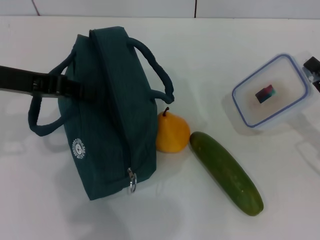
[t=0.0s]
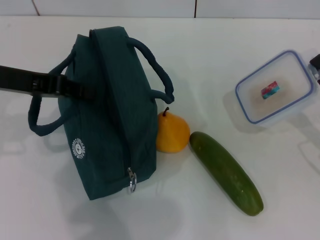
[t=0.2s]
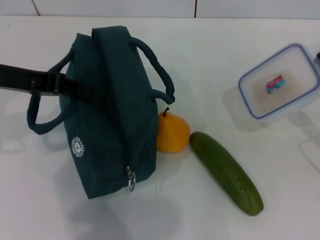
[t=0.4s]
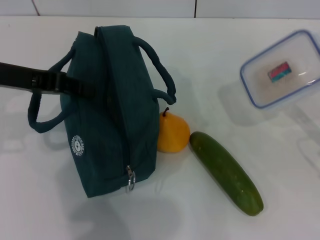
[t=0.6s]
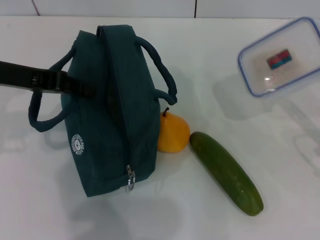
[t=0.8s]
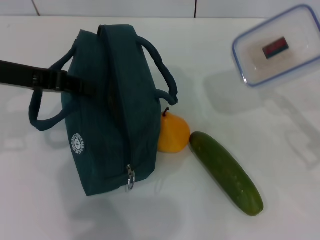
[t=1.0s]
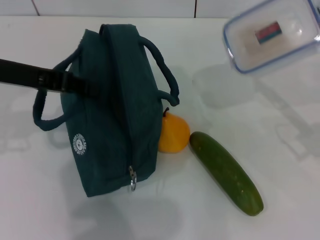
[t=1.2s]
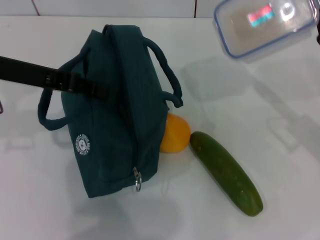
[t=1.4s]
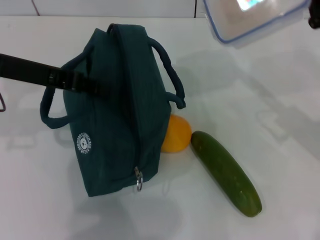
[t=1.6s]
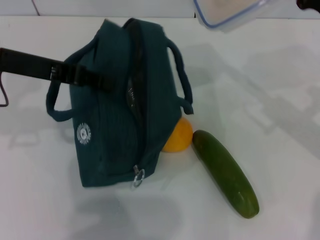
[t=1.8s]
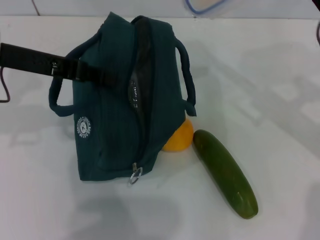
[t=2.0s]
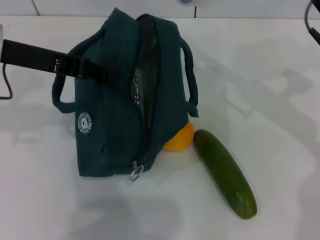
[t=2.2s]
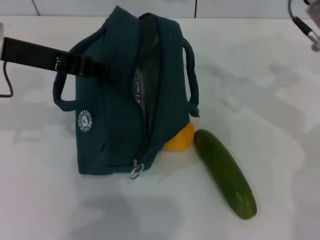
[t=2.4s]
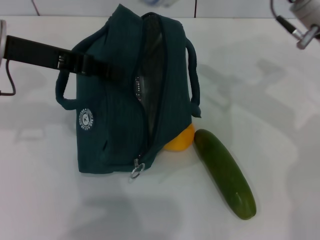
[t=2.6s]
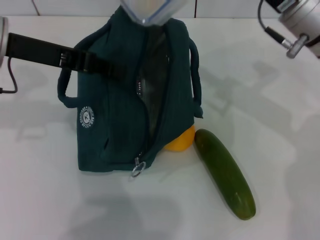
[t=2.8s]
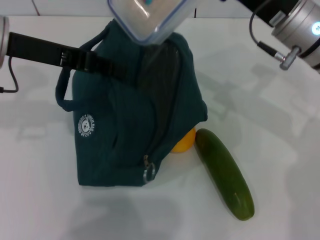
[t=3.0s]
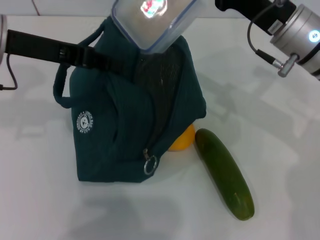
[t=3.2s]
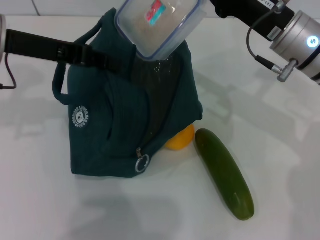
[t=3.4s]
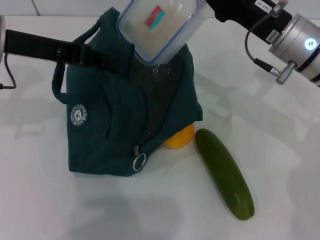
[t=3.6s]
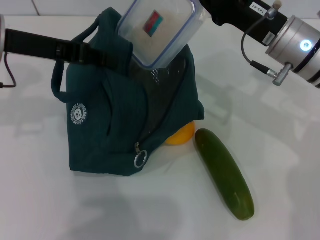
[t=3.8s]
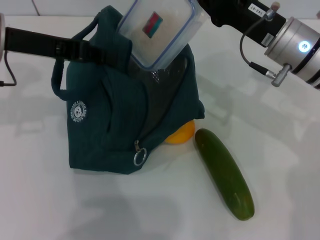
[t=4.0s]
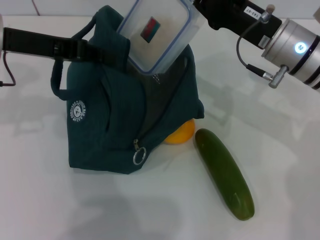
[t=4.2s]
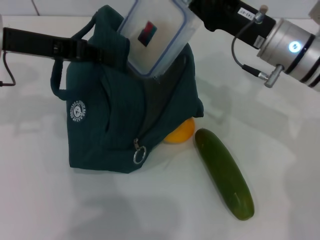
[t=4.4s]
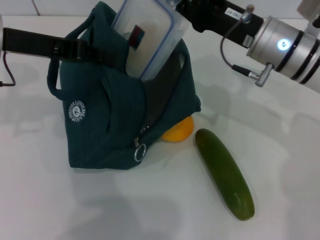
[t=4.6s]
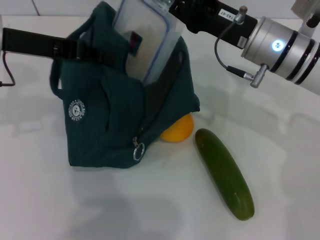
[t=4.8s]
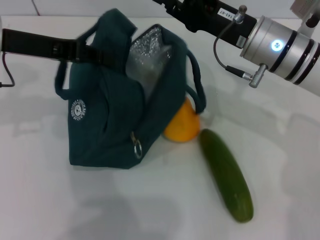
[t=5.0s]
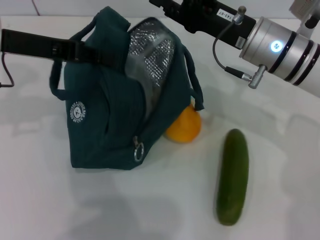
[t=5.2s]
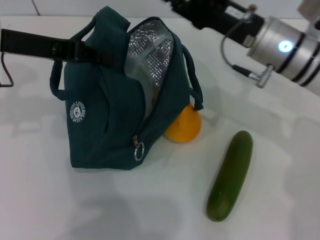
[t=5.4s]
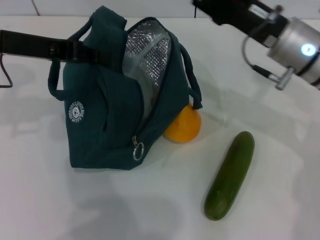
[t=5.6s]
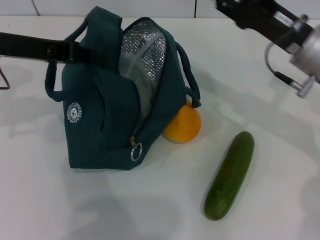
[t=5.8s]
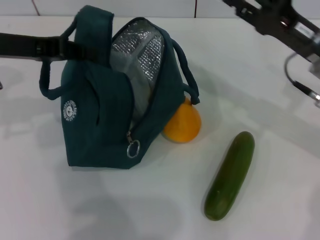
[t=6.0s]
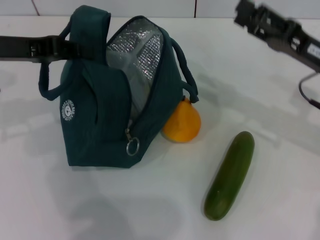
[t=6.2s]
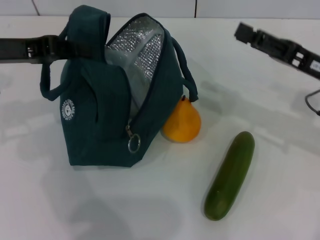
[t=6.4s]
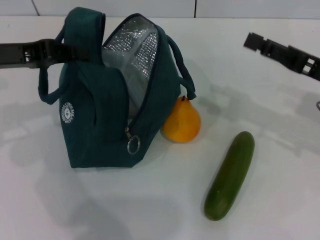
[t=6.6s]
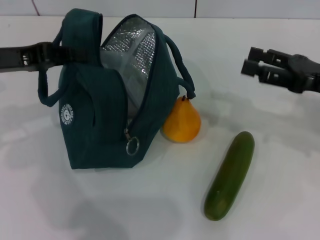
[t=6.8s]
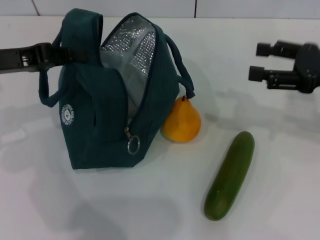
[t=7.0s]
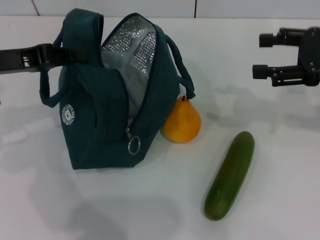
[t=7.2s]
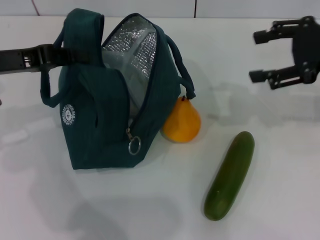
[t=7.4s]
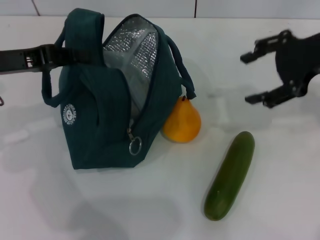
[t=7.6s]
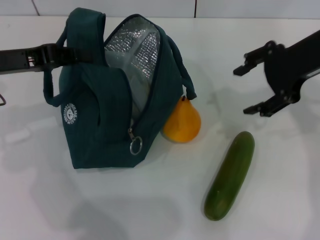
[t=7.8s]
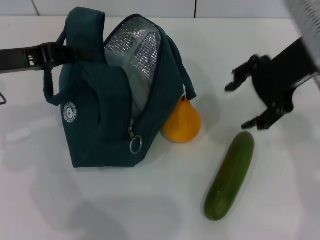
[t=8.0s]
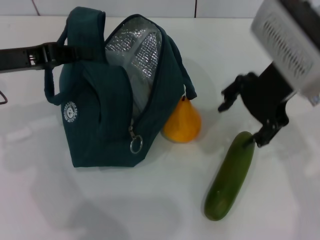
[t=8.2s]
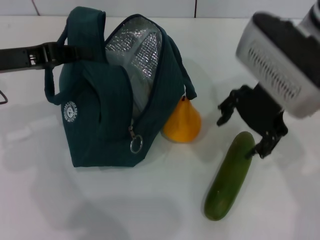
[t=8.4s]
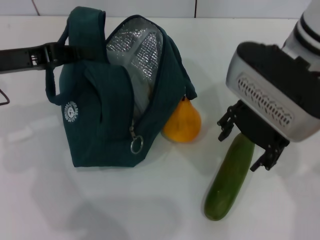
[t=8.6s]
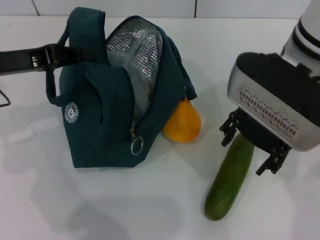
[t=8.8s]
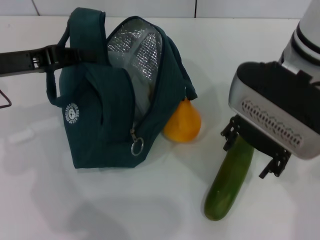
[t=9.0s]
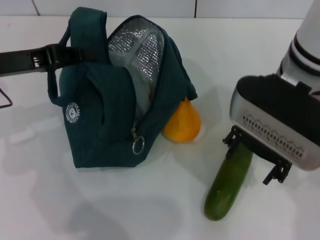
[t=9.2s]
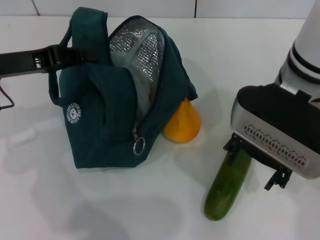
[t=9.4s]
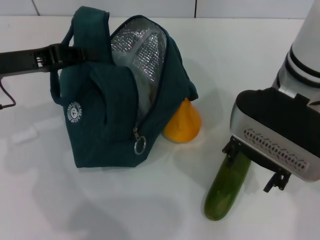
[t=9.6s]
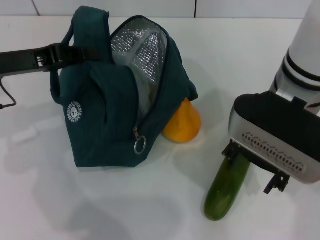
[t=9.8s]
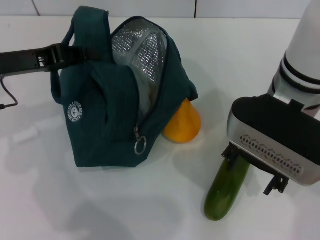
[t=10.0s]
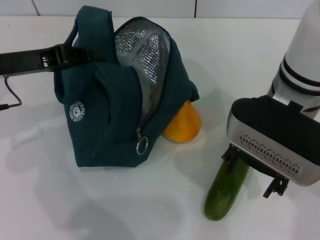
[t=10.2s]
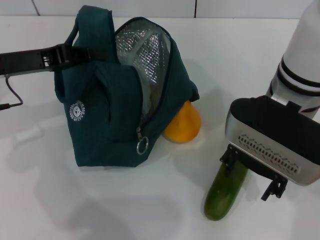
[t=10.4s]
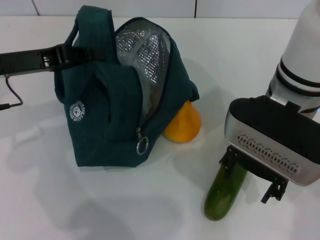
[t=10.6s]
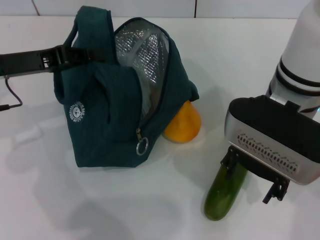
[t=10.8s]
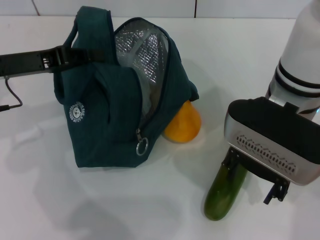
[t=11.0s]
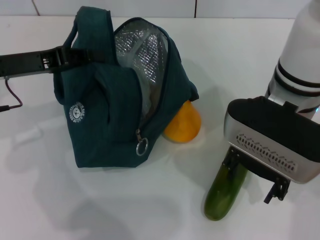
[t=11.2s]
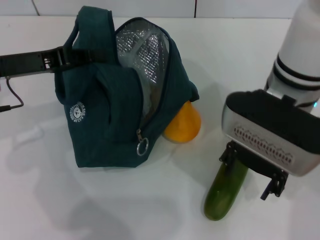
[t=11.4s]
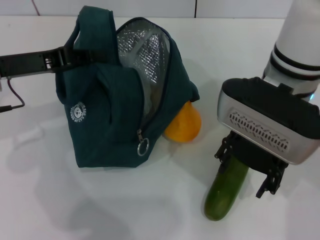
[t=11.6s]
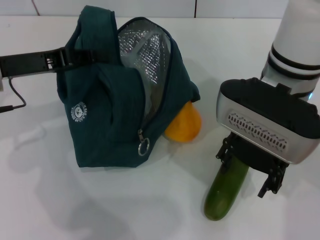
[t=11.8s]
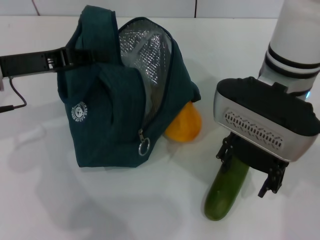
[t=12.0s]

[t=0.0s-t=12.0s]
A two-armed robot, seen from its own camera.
Step, t=0.0s to t=5.4s: Place the lunch box into the lunch bag with your right hand.
t=0.0s to t=1.6s: The right gripper shifts about 10 cm upward and to the left.
t=1.6s to t=3.0s: The right gripper goes roughly 10 cm to the left and forward.
t=4.4s to t=6.0s: The right gripper shifts roughly 5 cm to the right, and opens.
t=6.0s to t=7.6s: The right gripper is displaced upward by roughly 10 cm.
t=7.6s to t=9.0s: The right gripper moves to the left, some 15 cm.
t=10.4s to t=12.0s: The grippers move only a little.

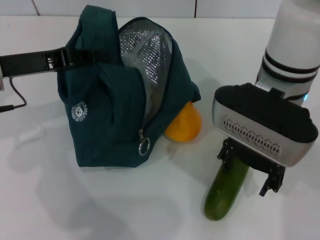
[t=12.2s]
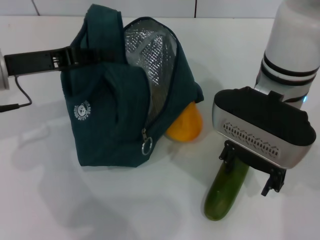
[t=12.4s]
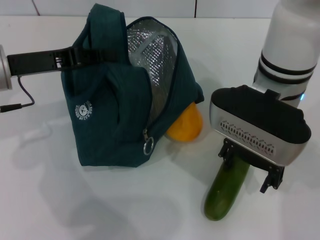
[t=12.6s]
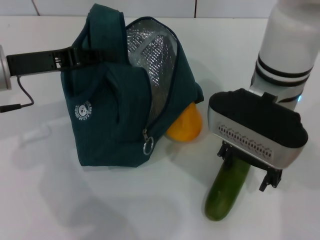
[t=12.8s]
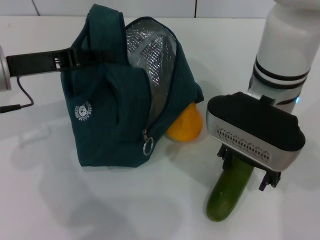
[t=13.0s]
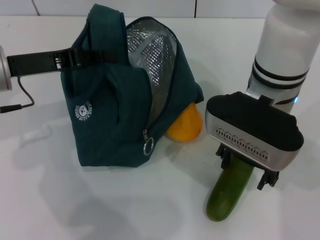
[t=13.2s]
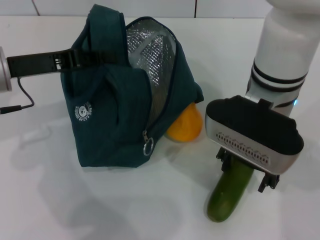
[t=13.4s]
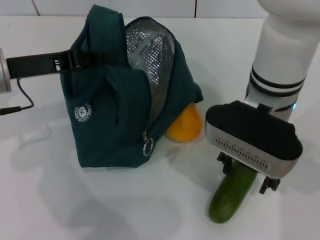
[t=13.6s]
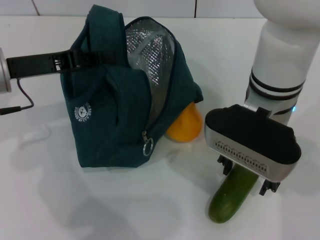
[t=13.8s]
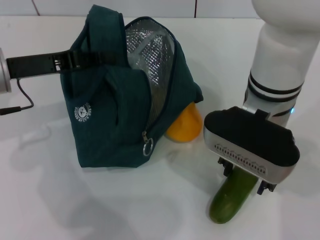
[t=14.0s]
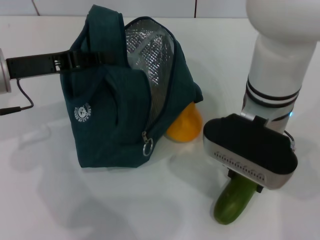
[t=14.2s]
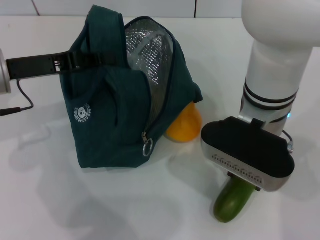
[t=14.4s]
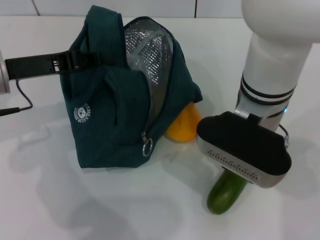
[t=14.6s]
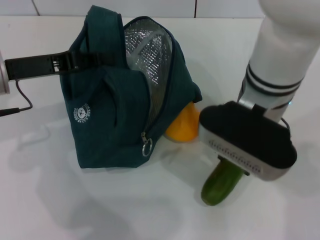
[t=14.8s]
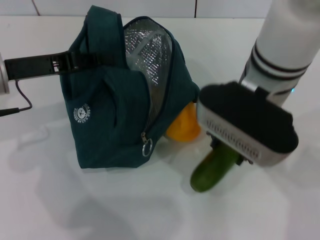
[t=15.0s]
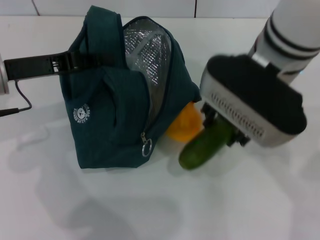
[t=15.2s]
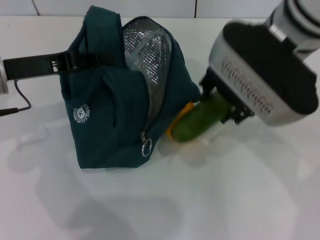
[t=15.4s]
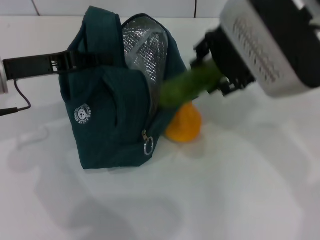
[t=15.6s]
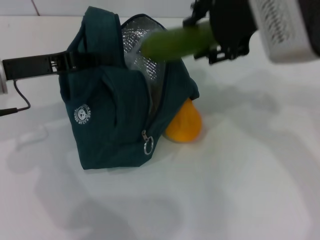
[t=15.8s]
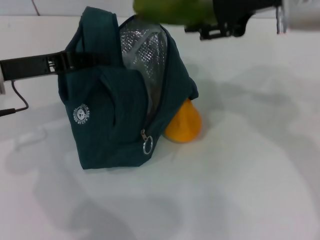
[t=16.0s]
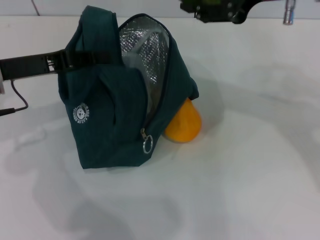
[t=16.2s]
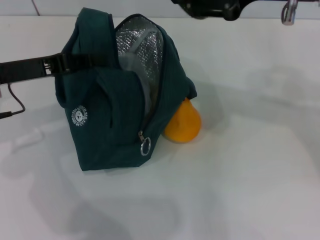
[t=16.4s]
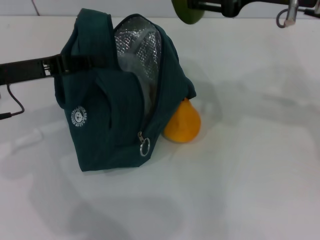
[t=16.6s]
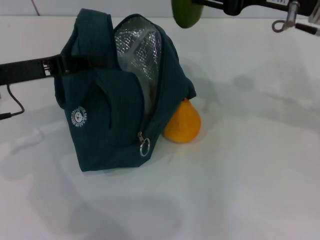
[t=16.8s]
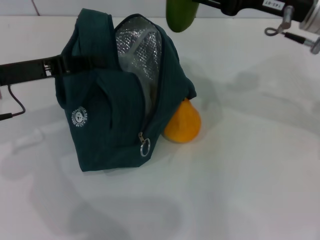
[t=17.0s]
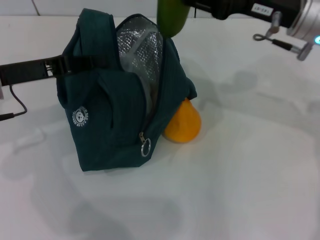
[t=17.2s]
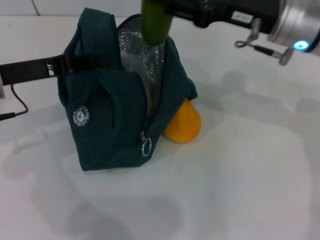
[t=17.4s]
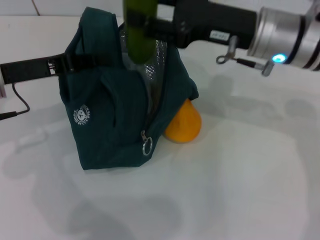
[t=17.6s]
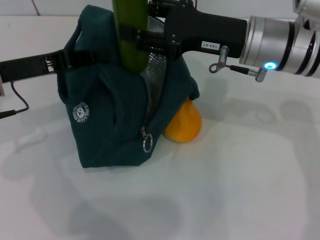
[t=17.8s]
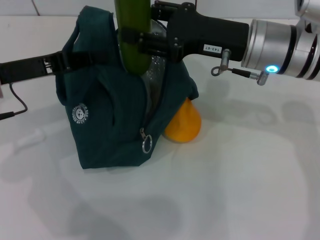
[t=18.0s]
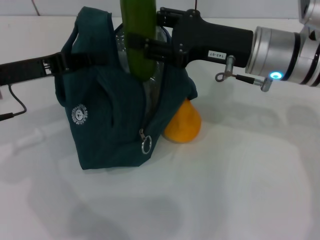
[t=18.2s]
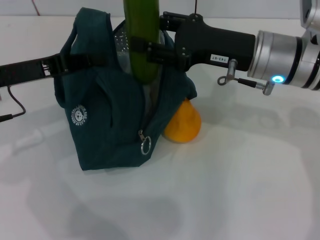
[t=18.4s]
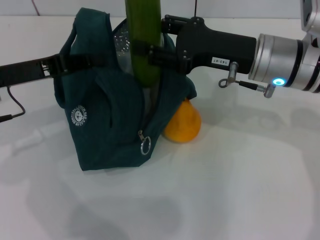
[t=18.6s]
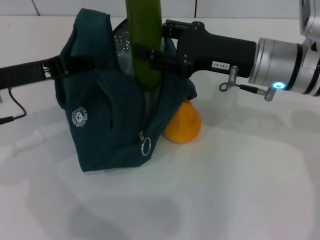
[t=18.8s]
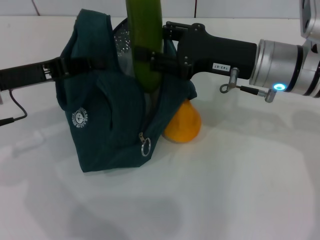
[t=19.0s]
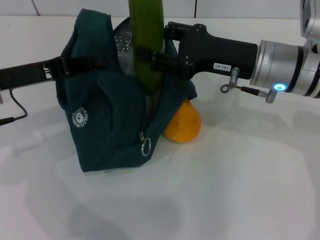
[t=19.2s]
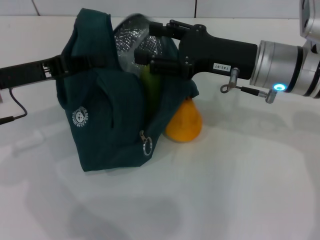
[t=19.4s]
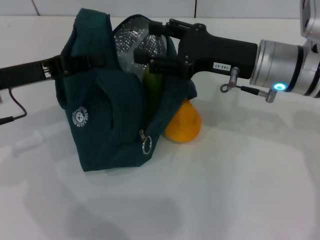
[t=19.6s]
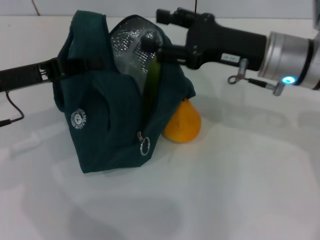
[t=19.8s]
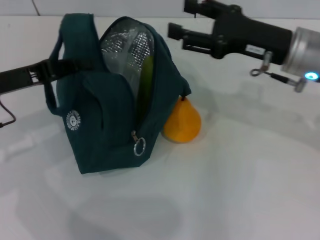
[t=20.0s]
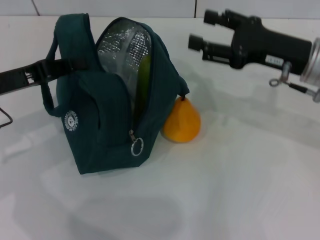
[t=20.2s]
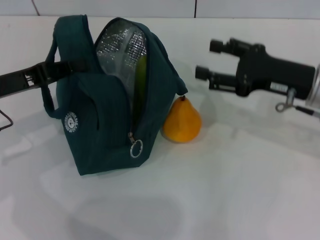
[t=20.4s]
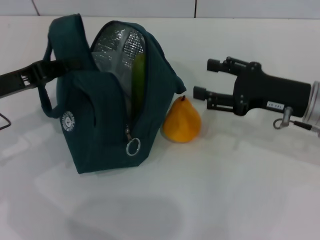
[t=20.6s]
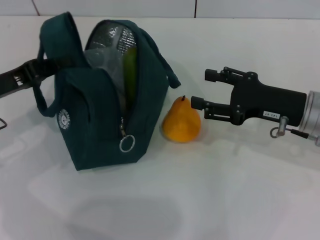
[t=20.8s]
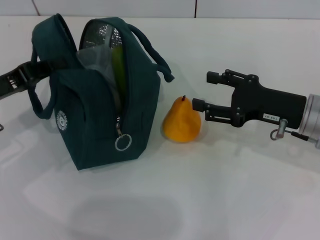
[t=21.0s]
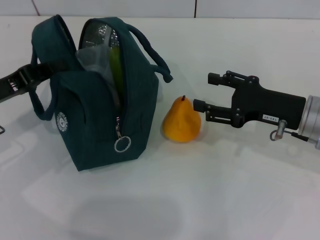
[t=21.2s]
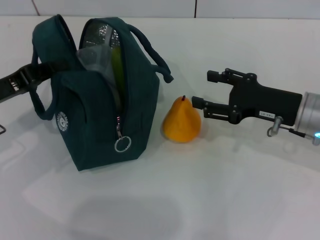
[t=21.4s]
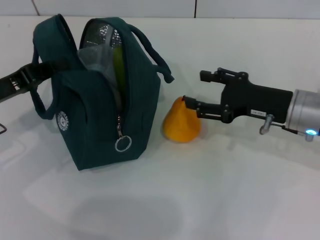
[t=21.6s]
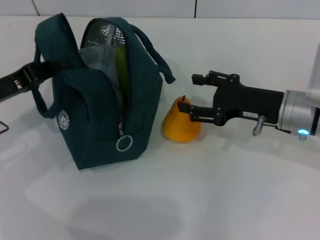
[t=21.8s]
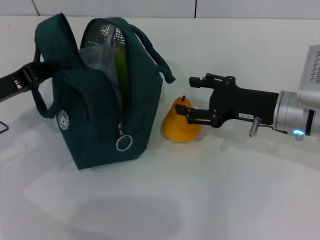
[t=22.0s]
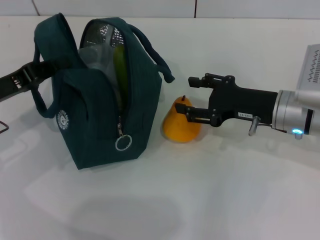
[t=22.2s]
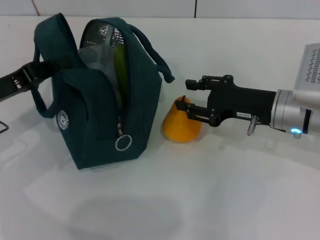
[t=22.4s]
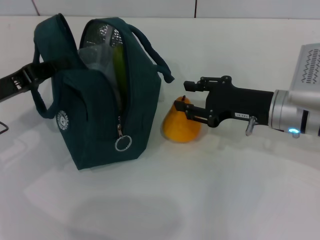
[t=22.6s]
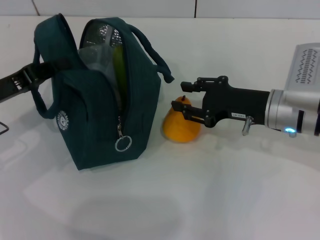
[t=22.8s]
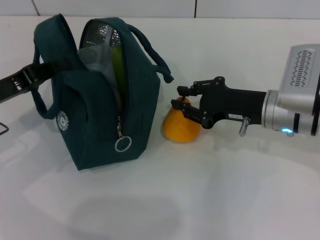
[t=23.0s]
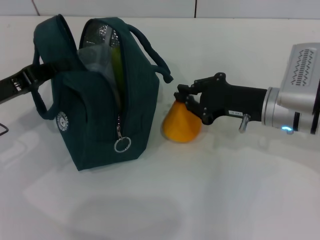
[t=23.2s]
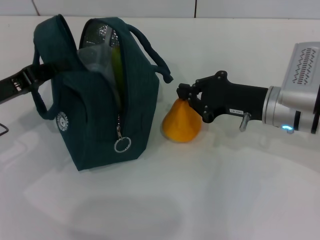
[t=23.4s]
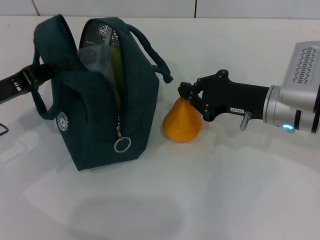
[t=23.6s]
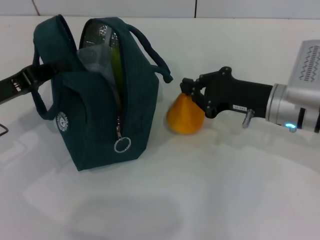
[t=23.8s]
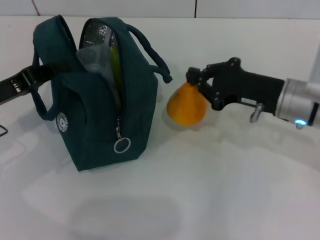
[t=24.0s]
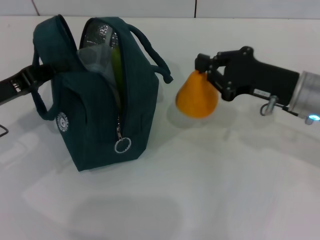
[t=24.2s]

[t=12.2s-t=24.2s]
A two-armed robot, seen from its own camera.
Step, t=12.2s to t=14.2s: Pick up the cucumber with your right hand.
Step, t=14.4s to t=19.6s: Put the cucumber into the lunch bag with your right hand.
Step, t=19.8s to t=23.6s: Grab the pear with your right hand.
t=13.8s to t=15.2s: The right gripper goes about 5 cm upward.
t=15.2s to t=16.6s: The right gripper travels to the right by about 10 cm.
t=16.6s to t=18.2s: The right gripper heads downward, covering approximately 10 cm.
t=18.2s to t=19.8s: The grippers make only small movements.
t=19.8s to t=21.2s: The left gripper moves about 5 cm; the right gripper goes roughly 10 cm downward and to the right.
t=21.2s to t=22.6s: The grippers move only a little.
t=22.6s to t=24.2s: The right gripper closes up.
